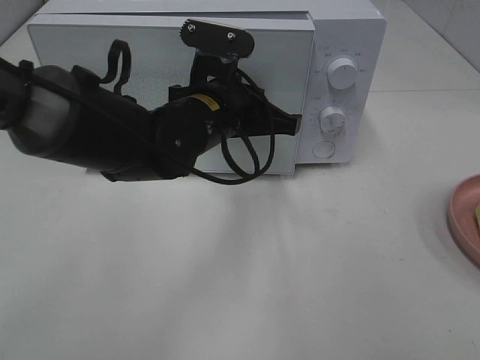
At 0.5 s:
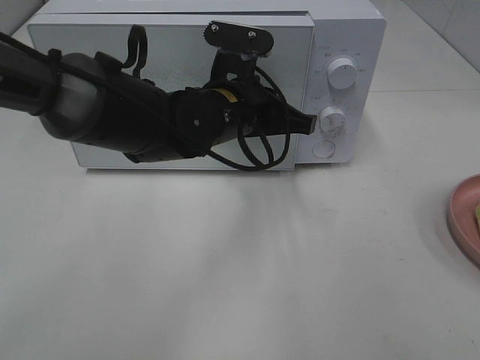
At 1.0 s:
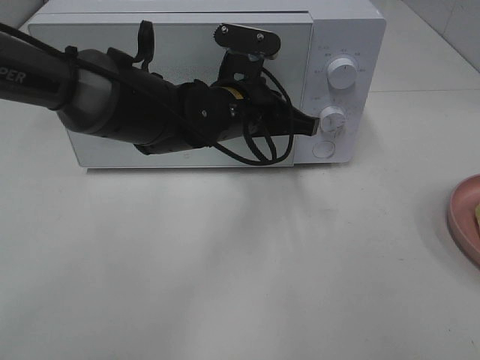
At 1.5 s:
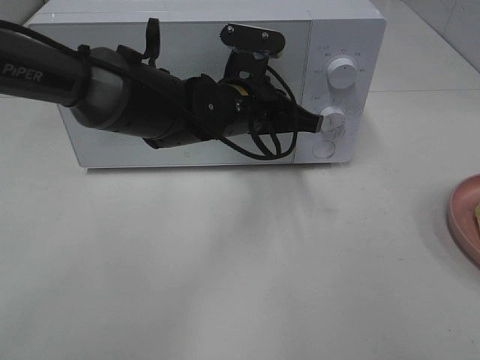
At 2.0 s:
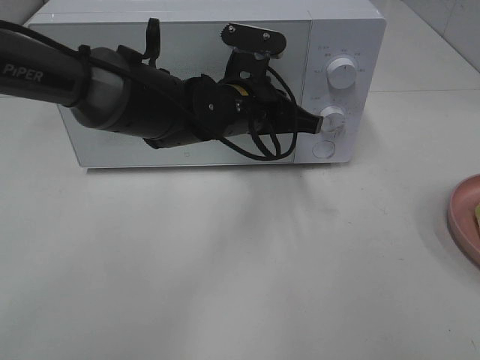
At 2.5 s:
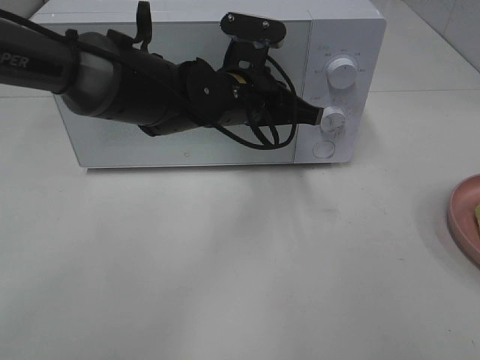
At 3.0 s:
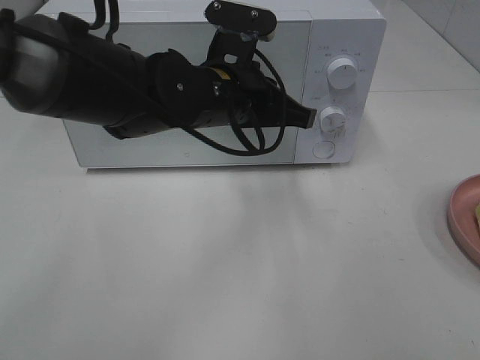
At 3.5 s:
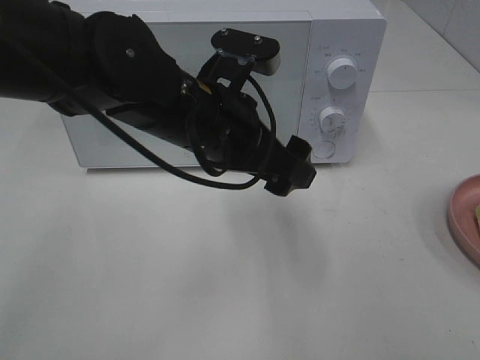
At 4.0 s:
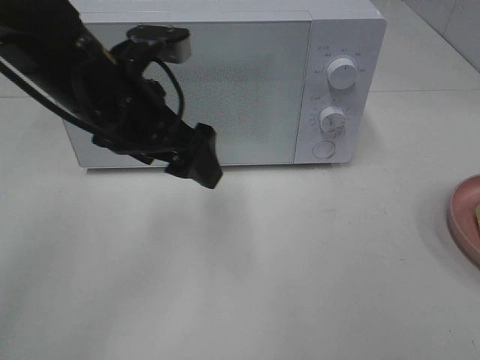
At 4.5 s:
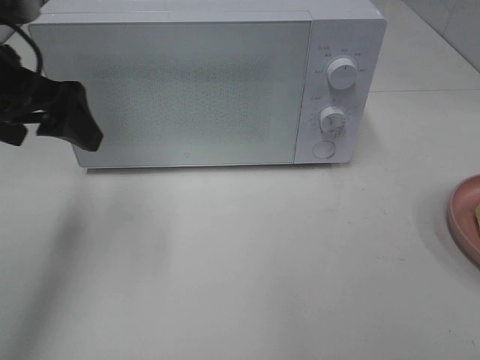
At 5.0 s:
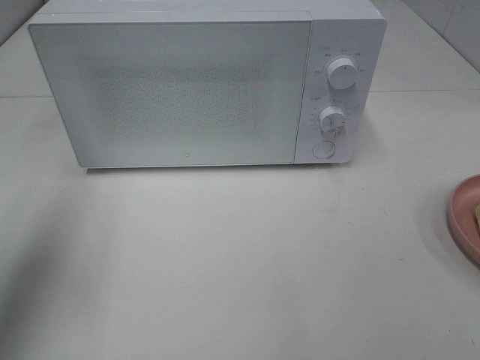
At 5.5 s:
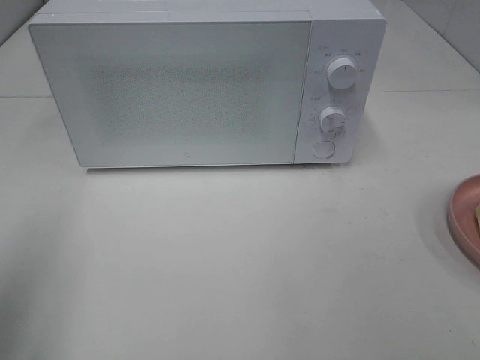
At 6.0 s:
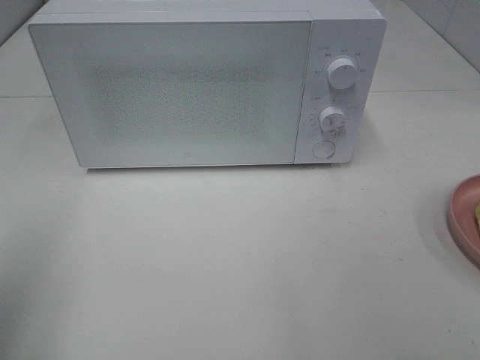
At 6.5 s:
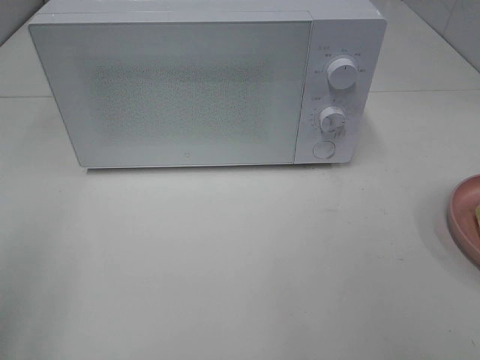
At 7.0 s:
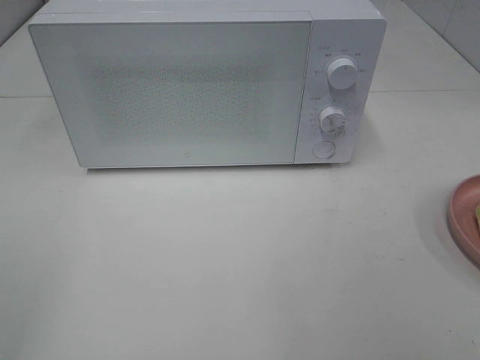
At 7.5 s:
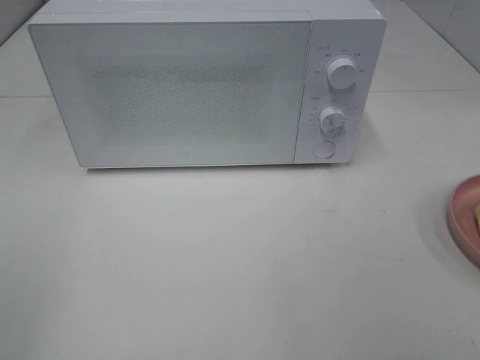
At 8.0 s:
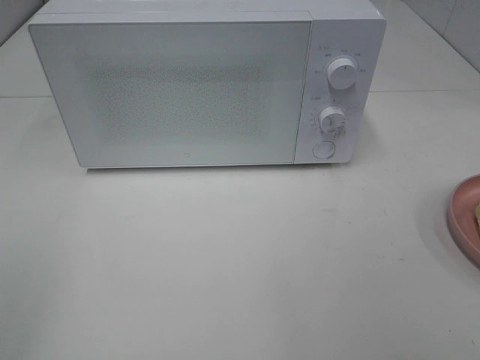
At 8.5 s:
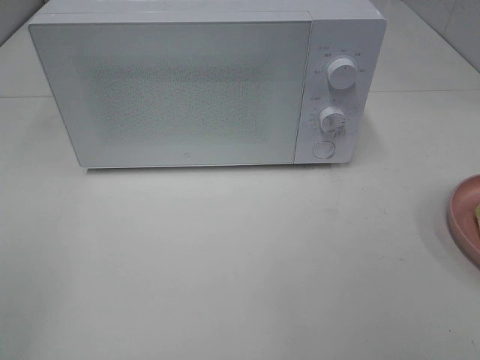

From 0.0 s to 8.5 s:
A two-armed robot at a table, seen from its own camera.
Task of the whole recording: Heat Sandwich.
Step, from 0.0 s to 2.5 s: Left hand: close the microwave door.
From 0.0 s to 2.0 s: There are only small adjustments of the grippers.
From 2.0 s to 4.0 s: The left gripper is displaced to the left, upward and backward by approximately 15 cm, and opens.
From 4.0 s to 6.5 s: The left gripper shifts roughly 30 cm backward and to the left.
